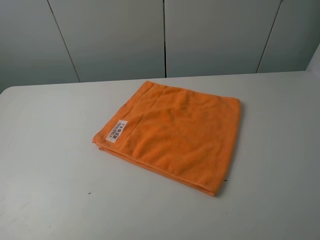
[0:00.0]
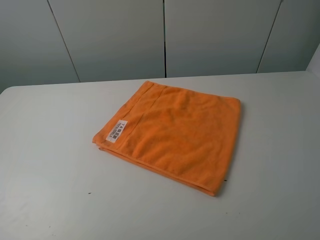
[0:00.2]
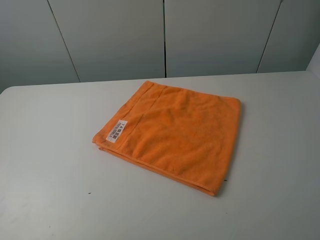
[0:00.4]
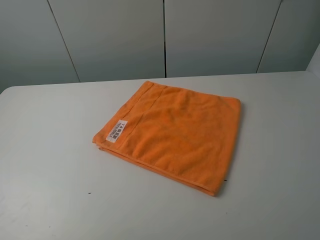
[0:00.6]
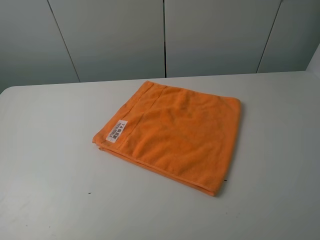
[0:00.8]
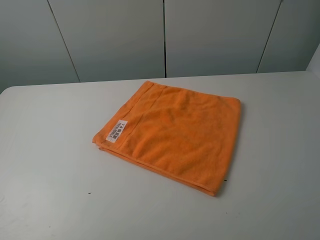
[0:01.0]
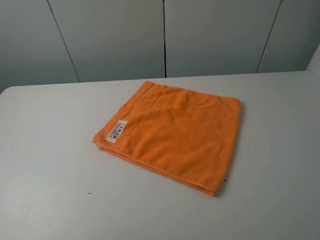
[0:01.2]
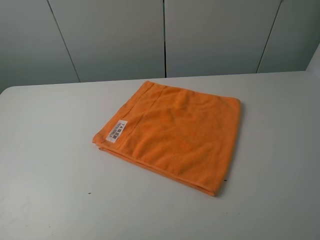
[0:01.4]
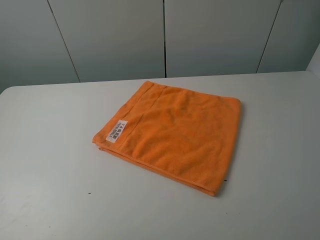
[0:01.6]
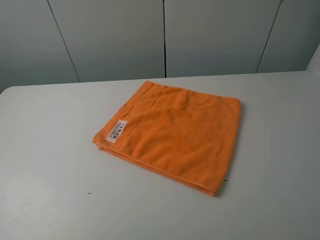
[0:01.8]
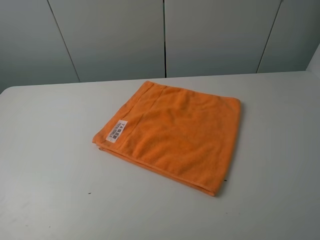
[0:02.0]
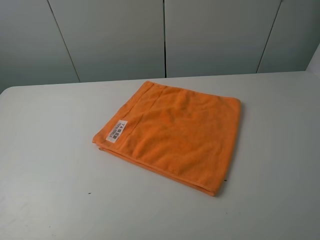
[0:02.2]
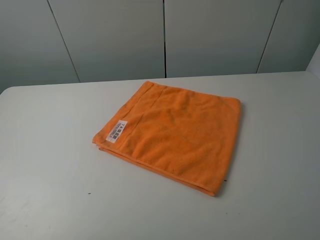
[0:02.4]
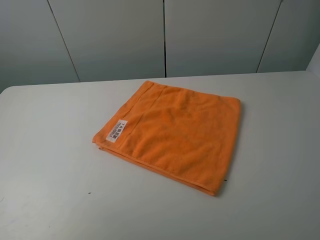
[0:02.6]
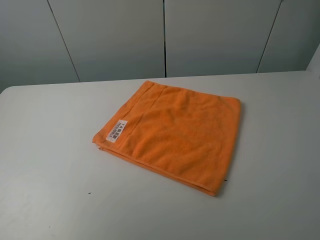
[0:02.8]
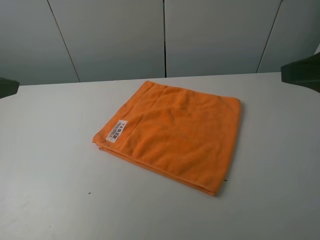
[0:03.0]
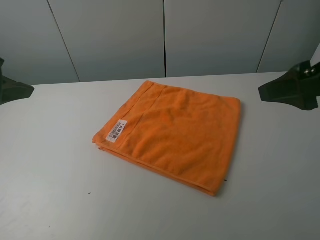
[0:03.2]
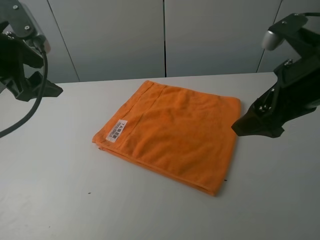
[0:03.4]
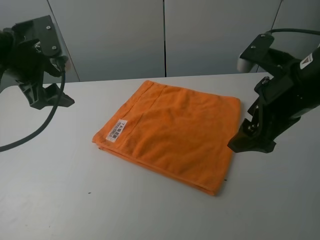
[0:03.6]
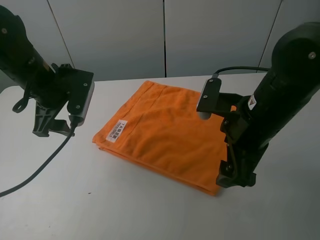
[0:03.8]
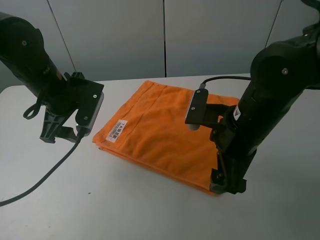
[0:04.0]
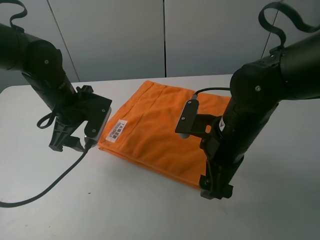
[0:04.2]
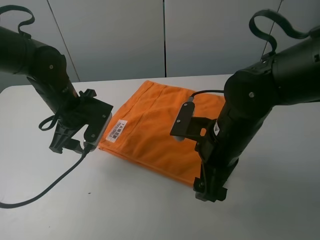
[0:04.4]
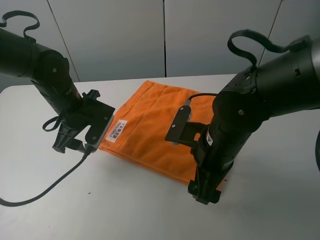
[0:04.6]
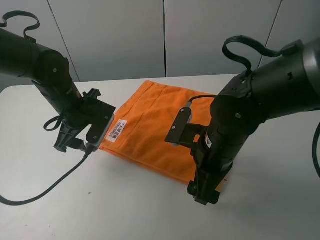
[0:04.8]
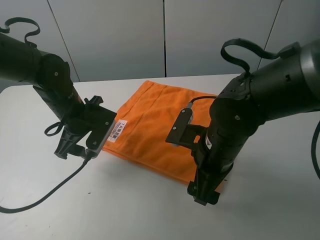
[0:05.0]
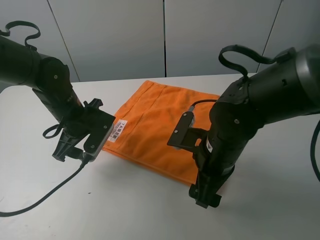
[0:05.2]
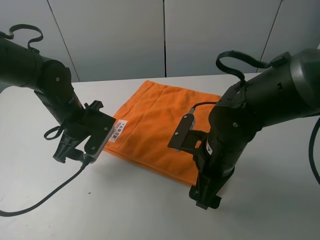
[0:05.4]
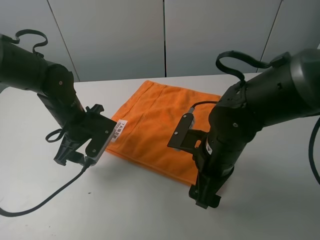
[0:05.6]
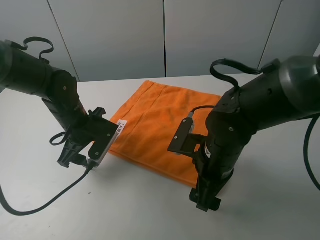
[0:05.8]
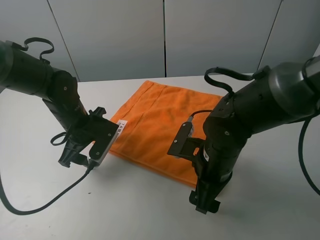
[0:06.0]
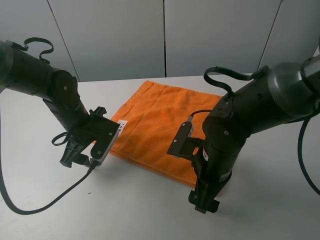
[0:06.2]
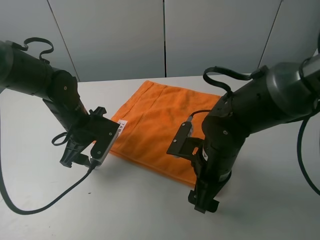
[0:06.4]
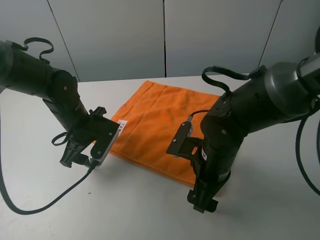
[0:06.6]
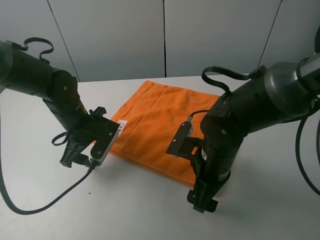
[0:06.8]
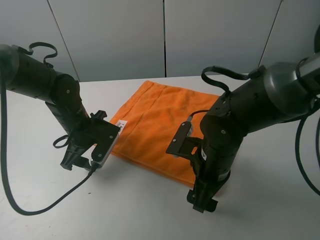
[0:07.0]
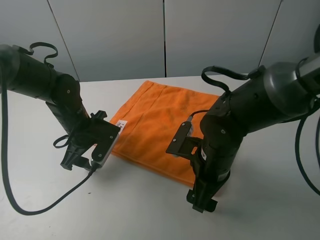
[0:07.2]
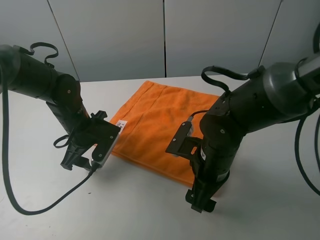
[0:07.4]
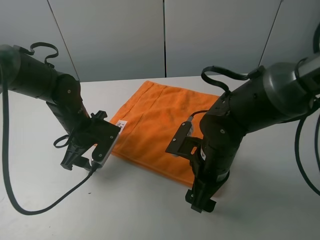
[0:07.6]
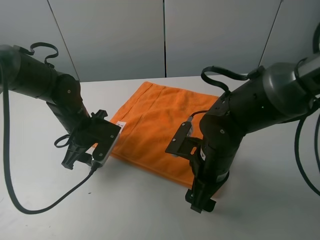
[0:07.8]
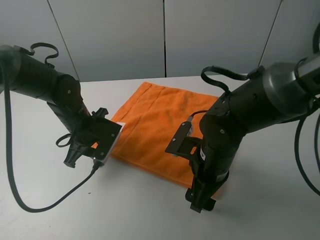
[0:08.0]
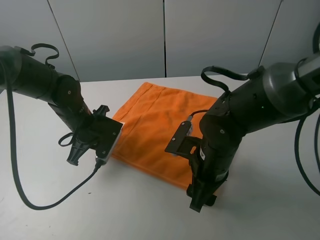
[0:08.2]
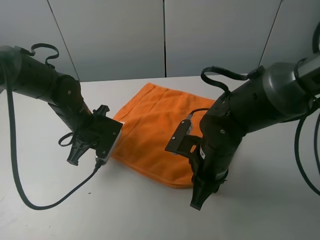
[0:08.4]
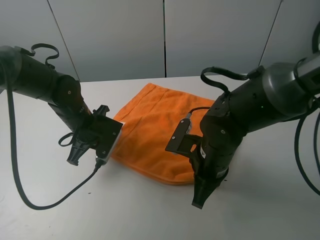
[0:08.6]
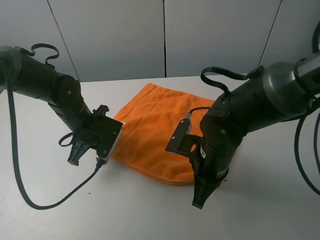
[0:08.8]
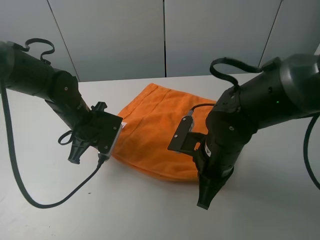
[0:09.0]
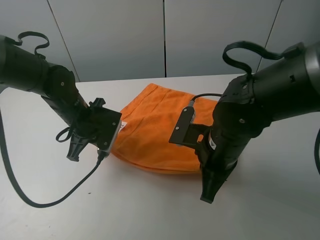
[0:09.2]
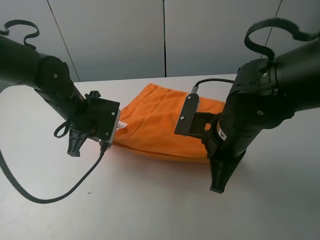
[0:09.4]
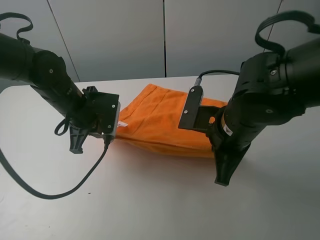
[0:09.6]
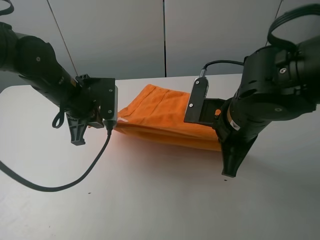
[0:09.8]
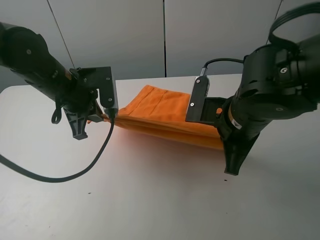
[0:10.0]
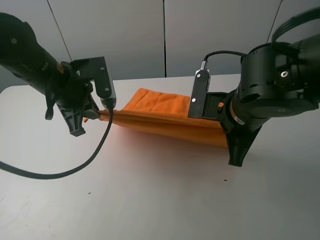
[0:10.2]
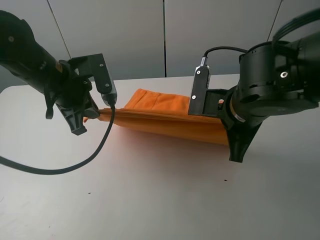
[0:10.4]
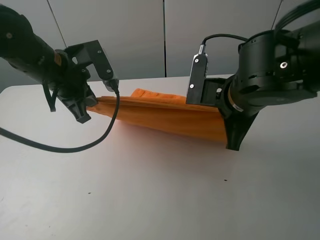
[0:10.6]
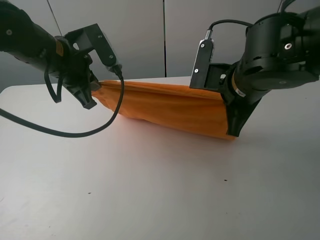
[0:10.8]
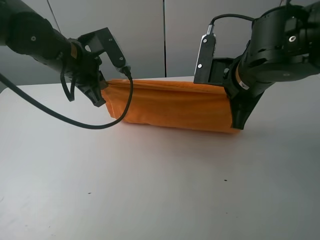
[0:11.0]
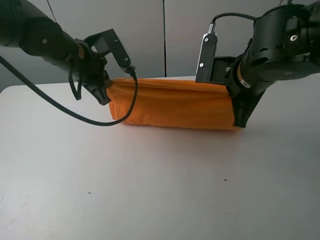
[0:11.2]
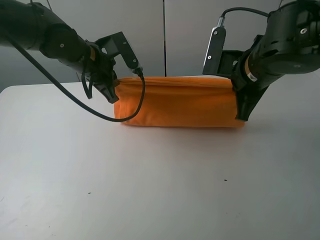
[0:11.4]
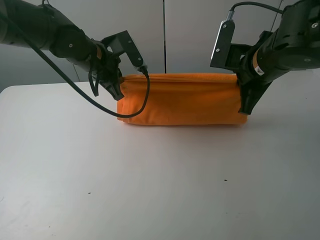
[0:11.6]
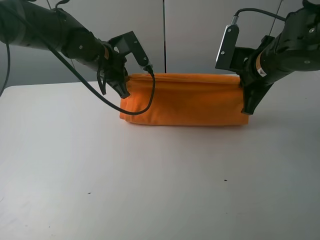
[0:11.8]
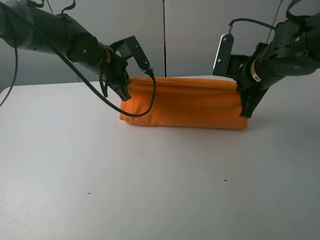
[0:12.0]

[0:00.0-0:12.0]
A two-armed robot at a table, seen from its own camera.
Task of the whole recording: fold the towels on the table.
Step, 0:00.0 to 0:08.6: Grasp the orange towel with the right gripper.
0:01.6 to 0:03.0: The right gripper moves forward, approximately 15 cm.
0:03.0 to 0:04.4: The left gripper shifts some 25 cm downward, forward and to the right. Meanwhile the right gripper is displaced downward and to the left by approximately 20 cm.
0:04.4 to 0:06.0: The right gripper moves downward, about 5 cm.
0:06.0 to 0:07.6: Both grippers stay put.
0:07.6 to 0:09.0: The left gripper closes; the right gripper closes.
0:09.0 to 0:10.4: The two grippers go approximately 10 cm upward.
0:10.4 to 0:12.0: Both grippers move forward and to the right, approximately 10 cm.

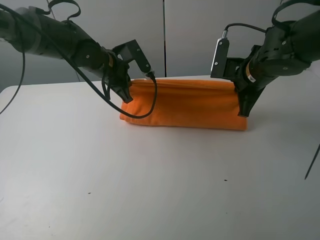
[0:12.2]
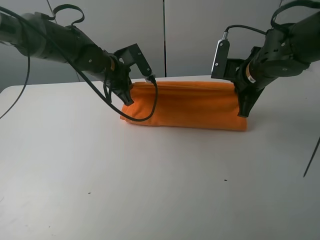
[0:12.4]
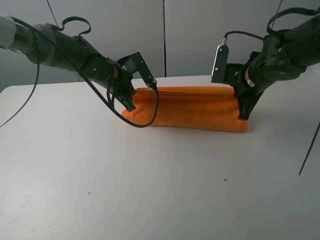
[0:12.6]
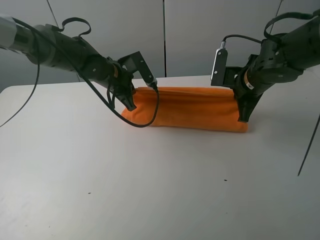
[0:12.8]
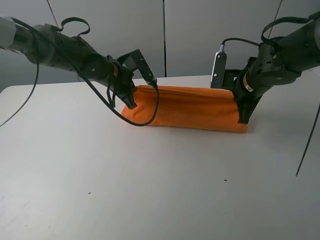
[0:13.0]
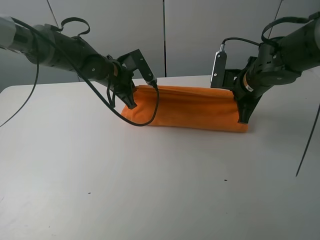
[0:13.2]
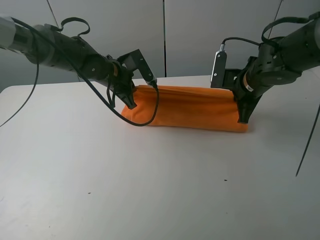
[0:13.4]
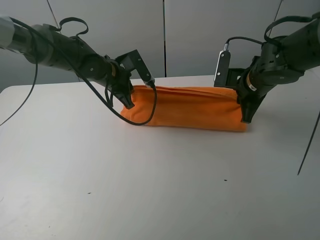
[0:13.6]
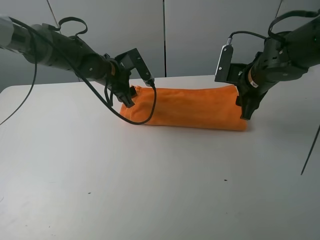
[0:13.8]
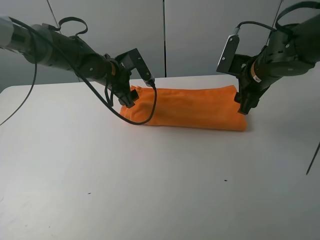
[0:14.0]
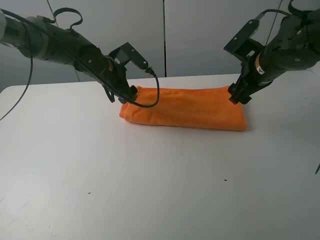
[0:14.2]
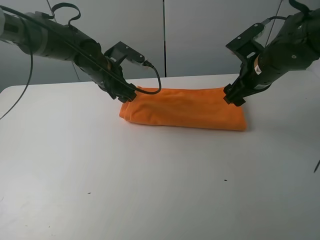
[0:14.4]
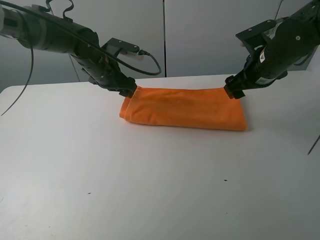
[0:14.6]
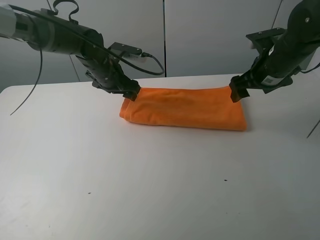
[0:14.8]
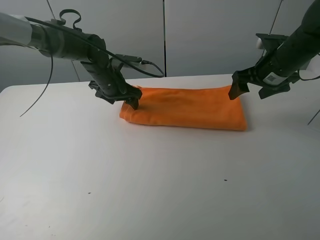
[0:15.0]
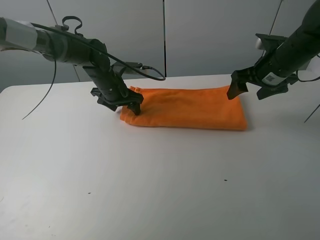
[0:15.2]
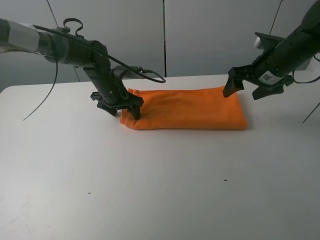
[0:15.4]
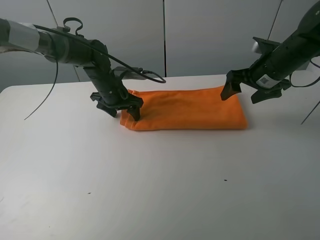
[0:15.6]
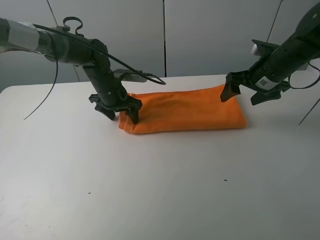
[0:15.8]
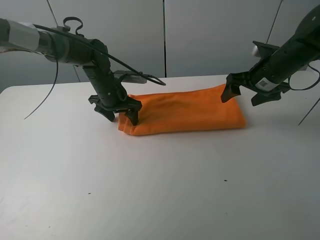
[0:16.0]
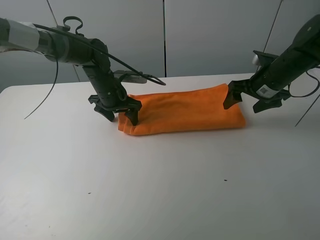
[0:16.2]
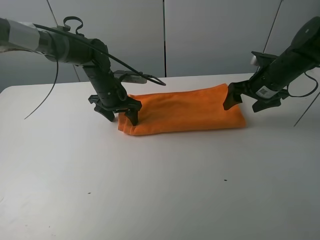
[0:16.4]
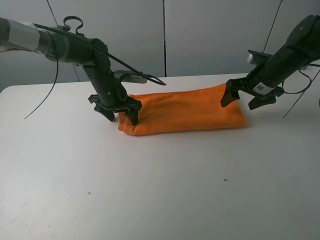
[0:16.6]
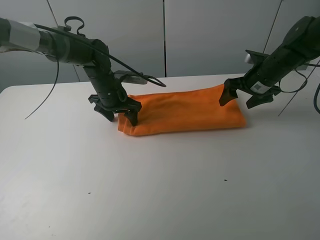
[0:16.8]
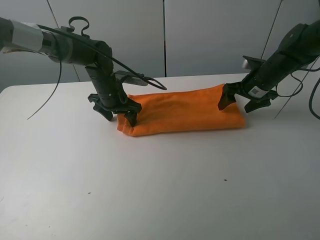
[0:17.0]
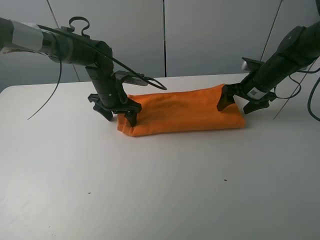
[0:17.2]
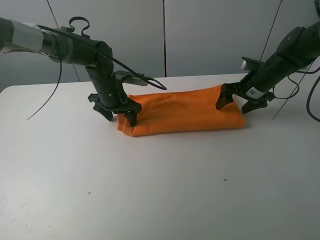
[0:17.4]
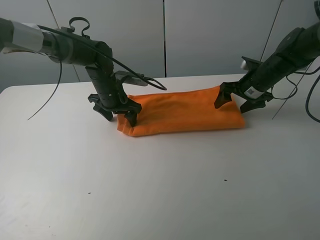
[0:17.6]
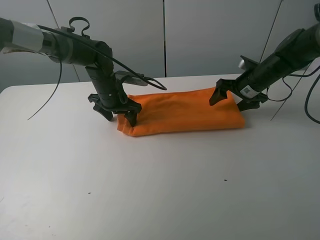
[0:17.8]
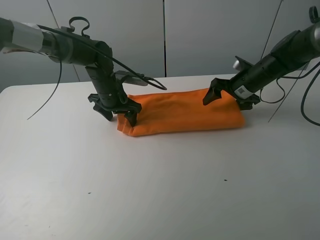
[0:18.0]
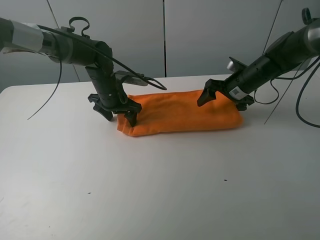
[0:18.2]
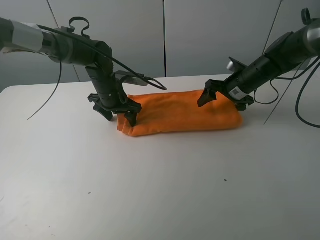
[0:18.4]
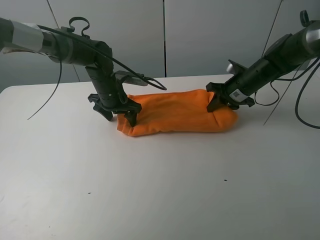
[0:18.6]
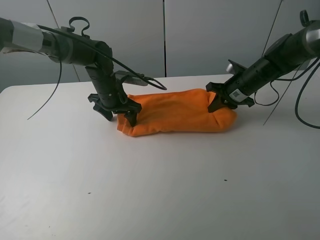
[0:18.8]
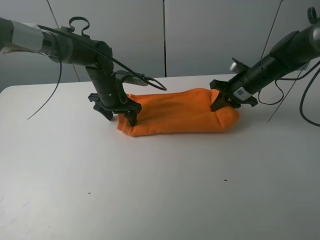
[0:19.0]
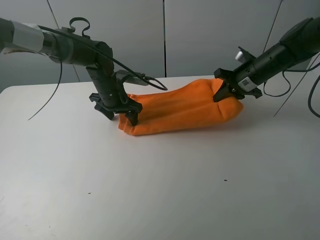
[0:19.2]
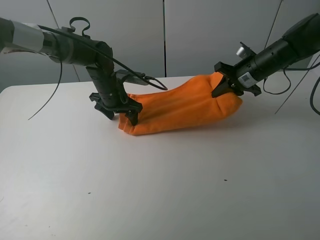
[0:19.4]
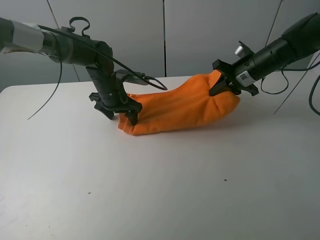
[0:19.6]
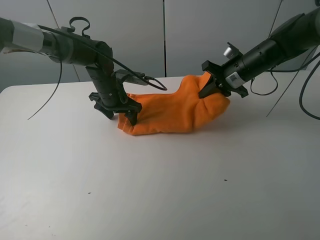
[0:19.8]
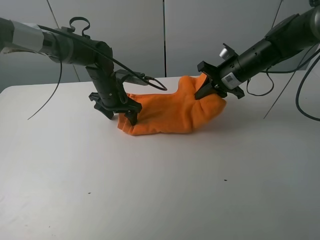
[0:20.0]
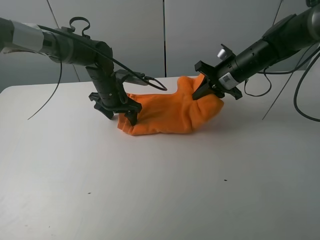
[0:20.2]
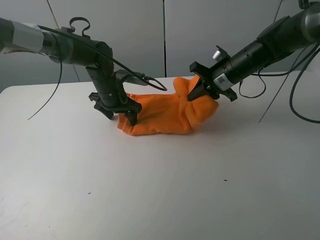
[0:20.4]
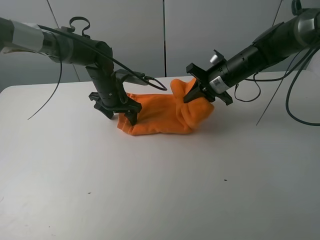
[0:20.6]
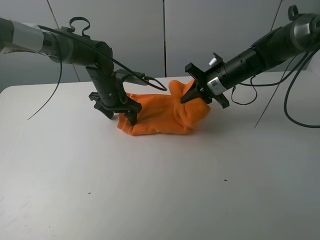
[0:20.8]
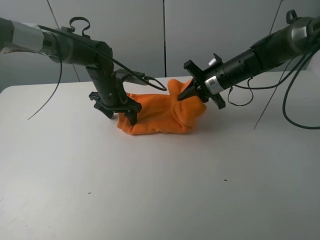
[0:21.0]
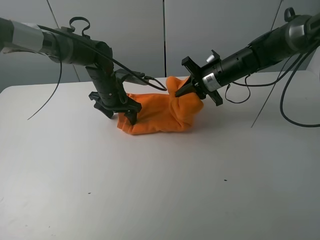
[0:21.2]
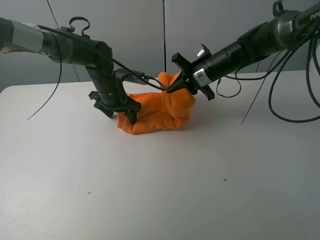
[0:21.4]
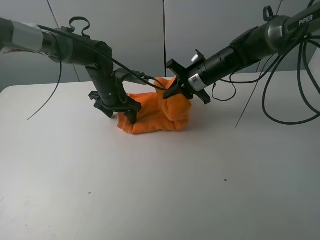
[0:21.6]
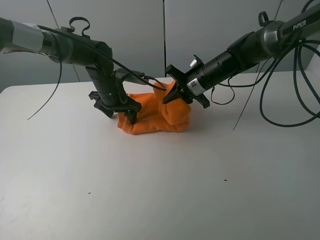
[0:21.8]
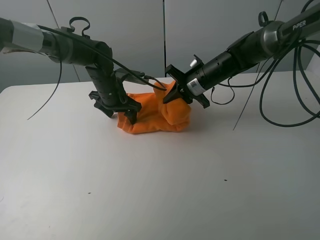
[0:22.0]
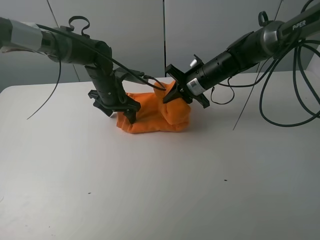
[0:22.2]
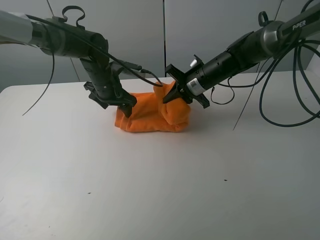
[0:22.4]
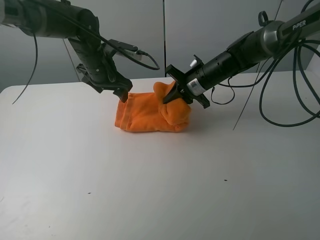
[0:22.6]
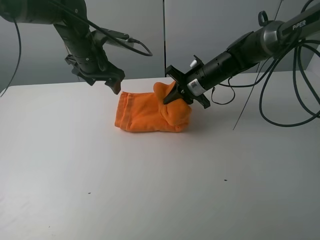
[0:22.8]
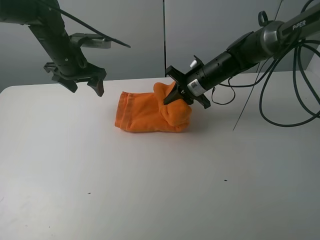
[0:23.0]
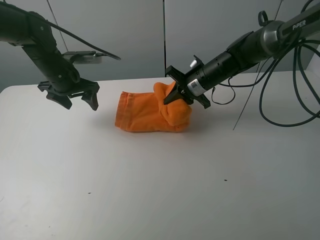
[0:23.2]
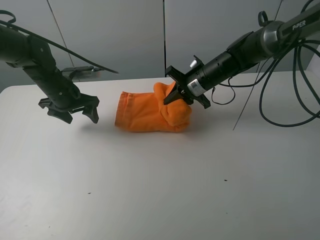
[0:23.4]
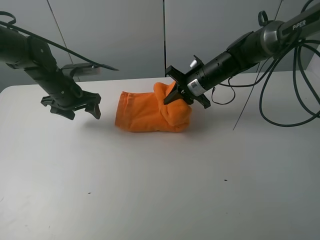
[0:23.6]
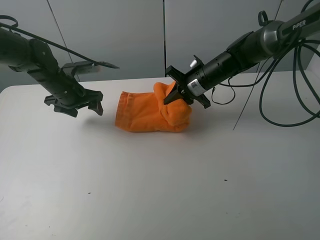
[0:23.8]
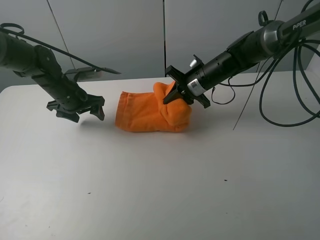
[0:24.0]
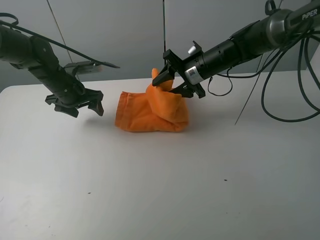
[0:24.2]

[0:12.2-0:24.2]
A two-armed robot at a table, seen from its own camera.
Task of the whole recording: fold the towels on the table.
Step, 0:14.0 to 0:15.4: Press on the orange towel with the left gripper.
0:12.2 to 0:13.8: The right gripper opens up. Meanwhile the left gripper opens its fingers.
0:13.8 to 0:15.2: The right gripper changes place by approximately 5 cm.
0:15.2 to 0:16.6: The right gripper travels downward by roughly 5 cm.
0:16.6 to 0:18.2: The right gripper changes place by approximately 5 cm.
0:18.2 to 0:19.8: The right gripper ends up about 5 cm from where it was, and closes its fingers.
0:19.8 to 0:21.2: The grippers make only small movements.
0:21.2 to 0:22.6: The left gripper travels upward by some 10 cm.
0:22.6 to 0:24.2: The right gripper opens up. Meanwhile the left gripper shifts some 10 cm to the left and downward.
